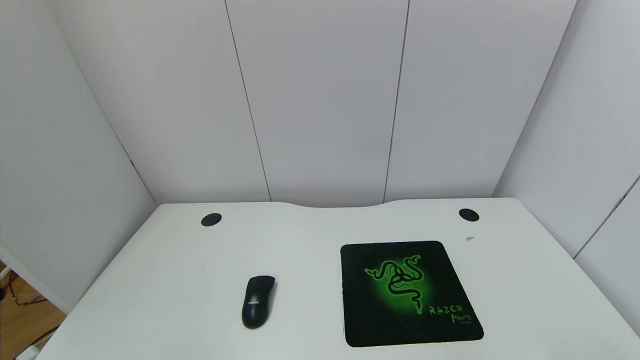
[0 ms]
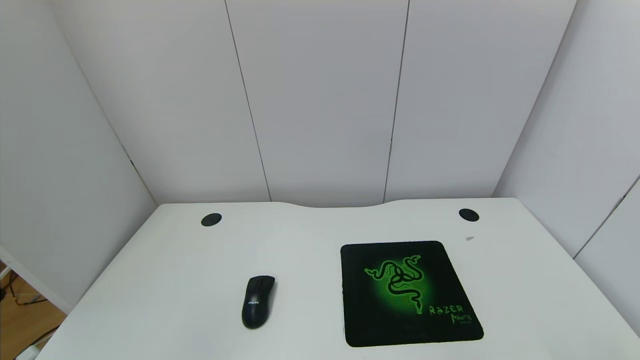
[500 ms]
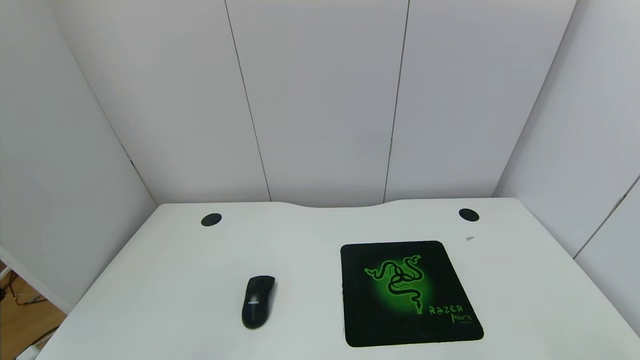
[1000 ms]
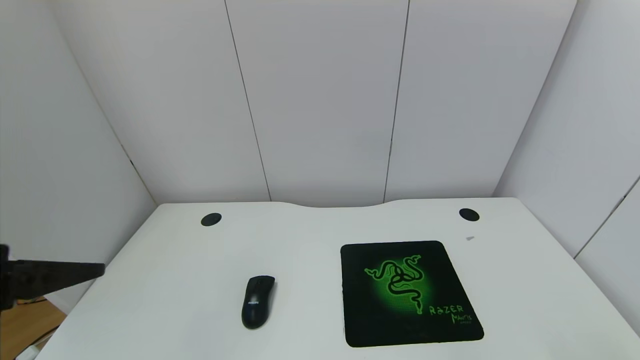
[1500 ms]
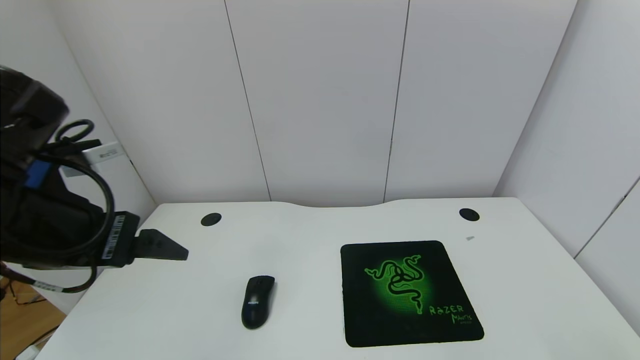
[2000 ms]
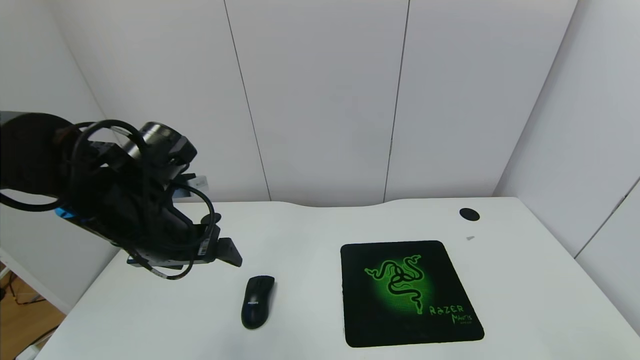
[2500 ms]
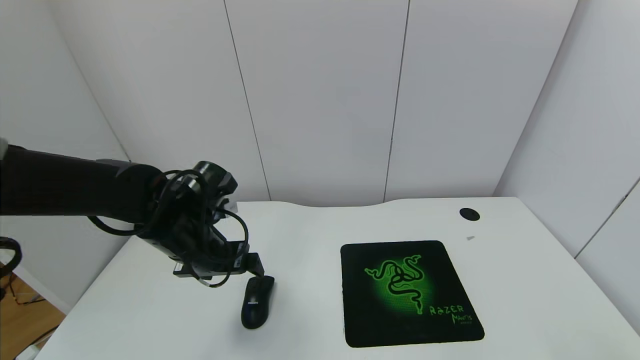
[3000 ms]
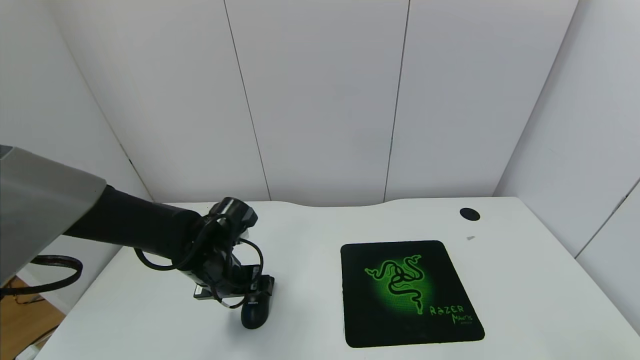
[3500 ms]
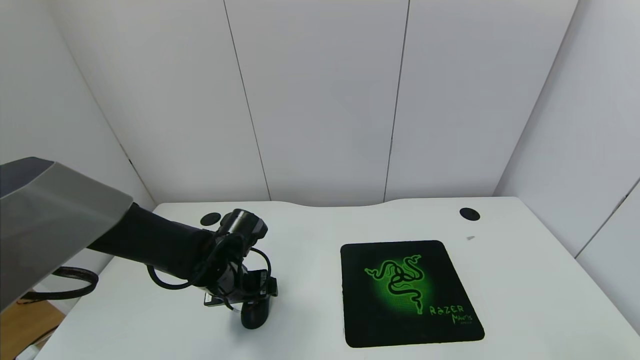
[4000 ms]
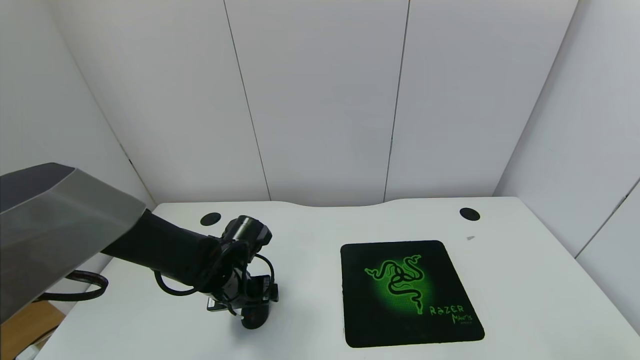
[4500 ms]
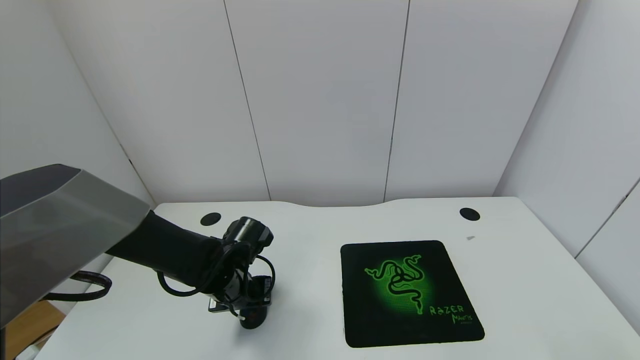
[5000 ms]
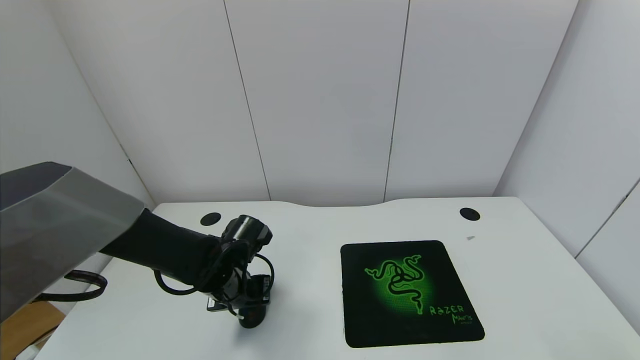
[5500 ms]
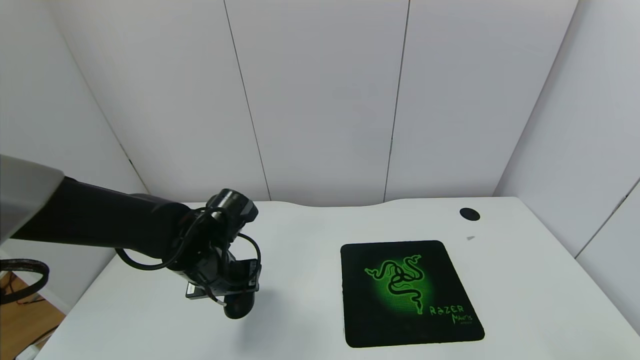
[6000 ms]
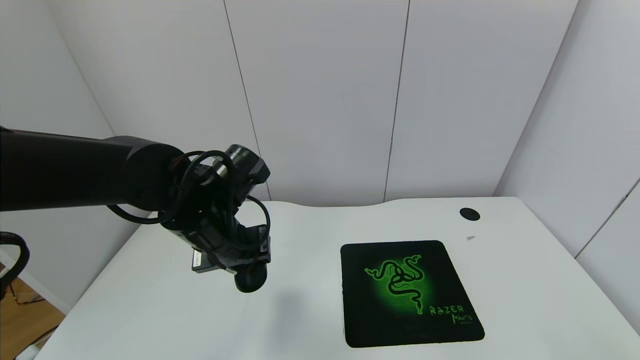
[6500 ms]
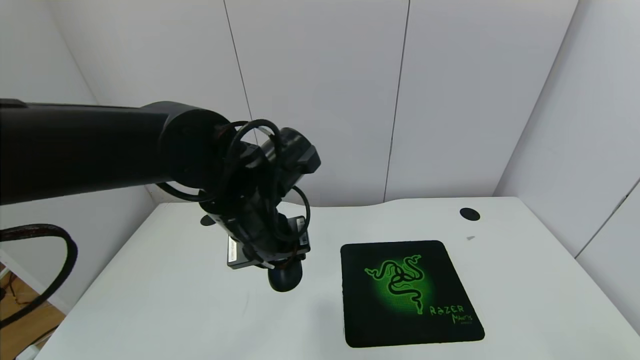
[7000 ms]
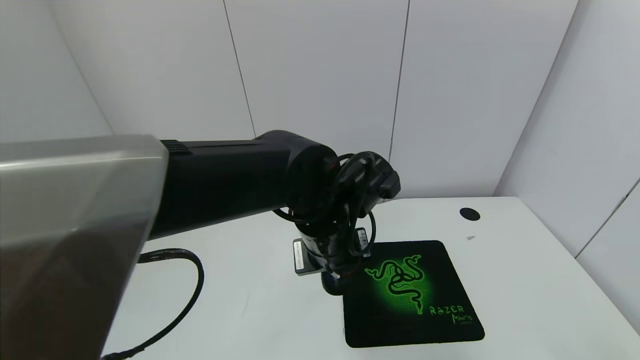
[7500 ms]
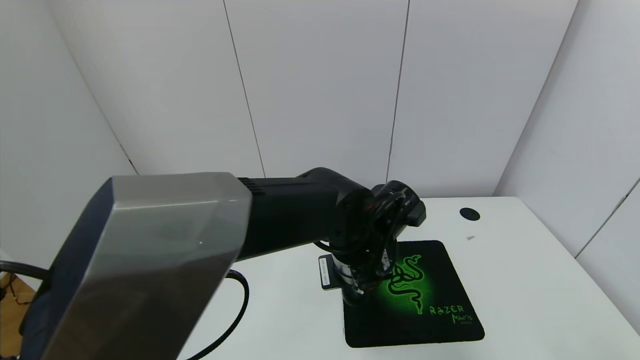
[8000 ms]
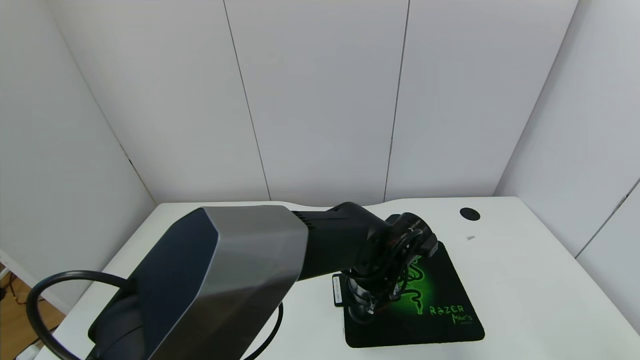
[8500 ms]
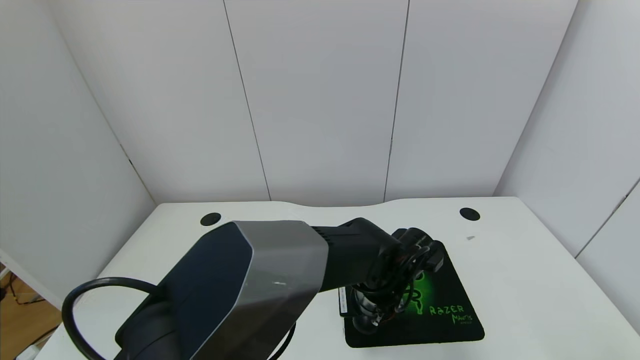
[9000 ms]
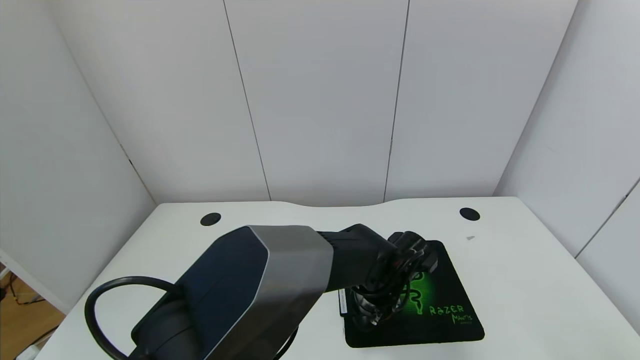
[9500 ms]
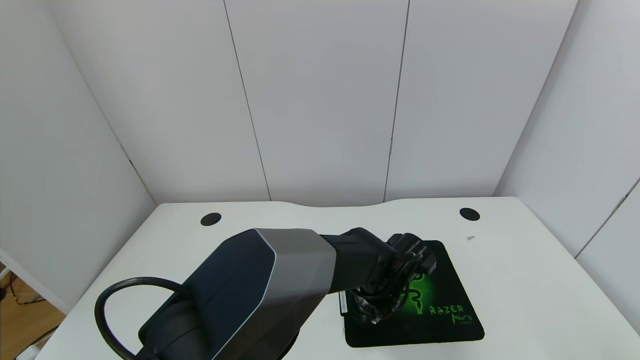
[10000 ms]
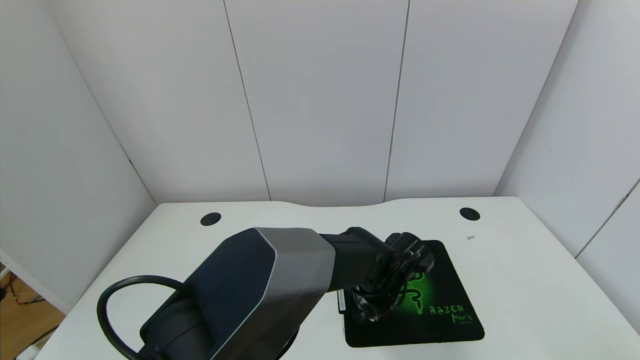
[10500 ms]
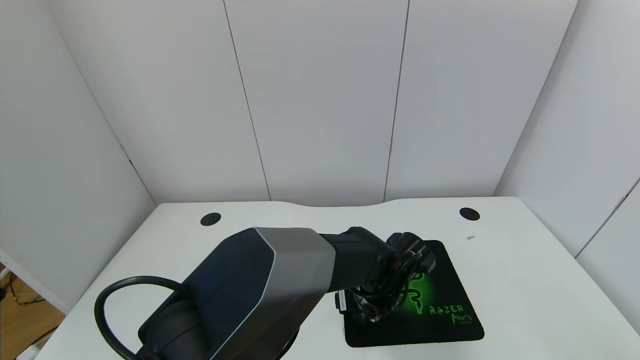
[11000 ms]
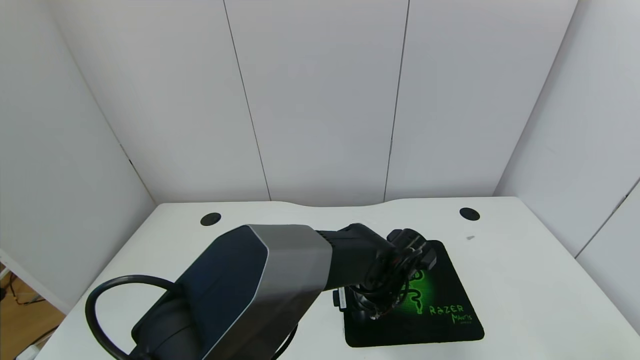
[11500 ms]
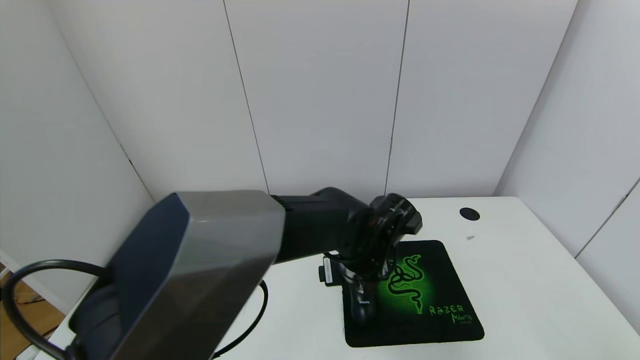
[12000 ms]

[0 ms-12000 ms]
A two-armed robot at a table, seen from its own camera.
Task of the whole recording: use the gripper to move the mouse from one side of the table to the mouse pad on the opposite side.
Step, 0 ms to 5000 ms: Grasp the mouse with the left gripper.
0 ms to 2000 ms: The left gripper goes some 30 cm forward and upward.
2000 ms to 4000 ms: The left gripper is displaced downward and forward by roughly 25 cm.
4000 ms to 6000 ms: The left gripper moves upward, roughly 5 cm, and closes.
6000 ms to 8000 ms: The left gripper heads to the right, covering roughly 20 cm.
8000 ms to 10000 ms: The left gripper is displaced downward by approximately 10 cm.
10000 ms to 12000 ms: The left gripper is displaced upward by some 5 cm, and opens its fingers.

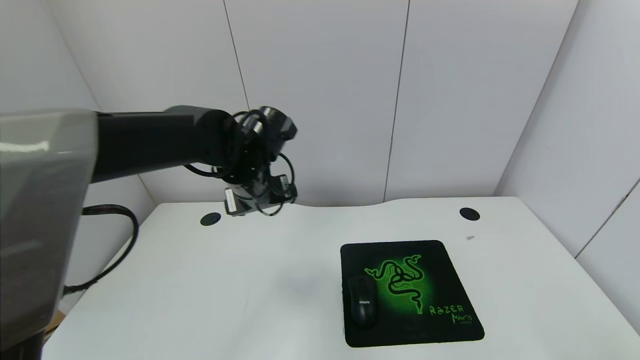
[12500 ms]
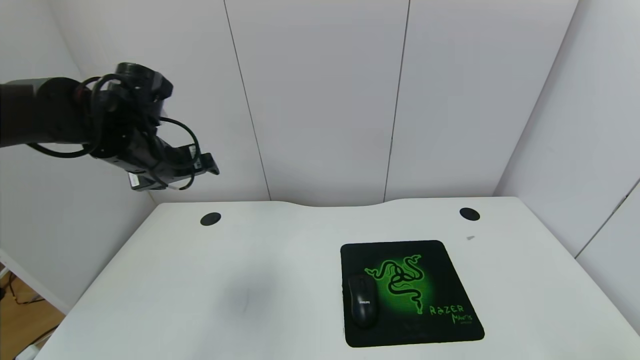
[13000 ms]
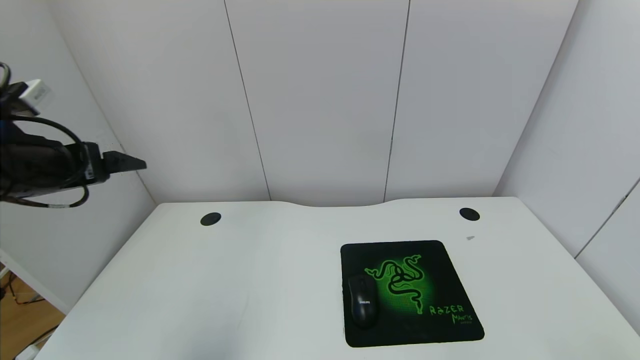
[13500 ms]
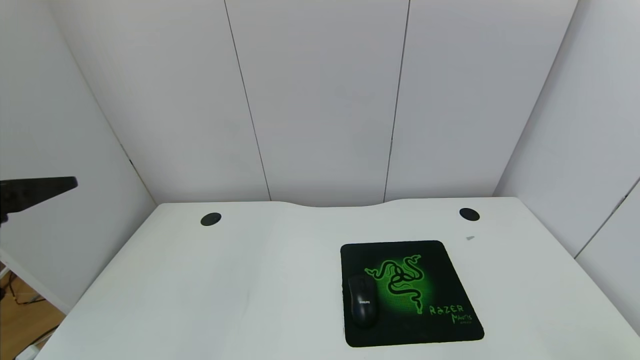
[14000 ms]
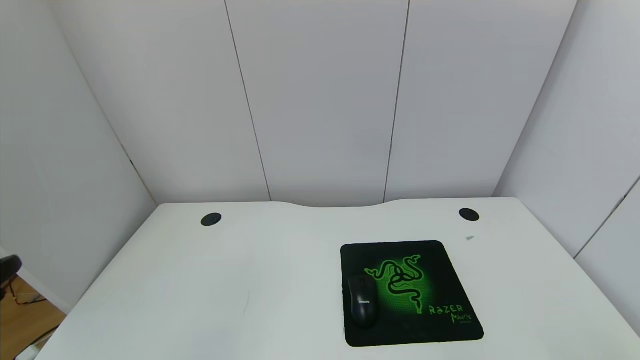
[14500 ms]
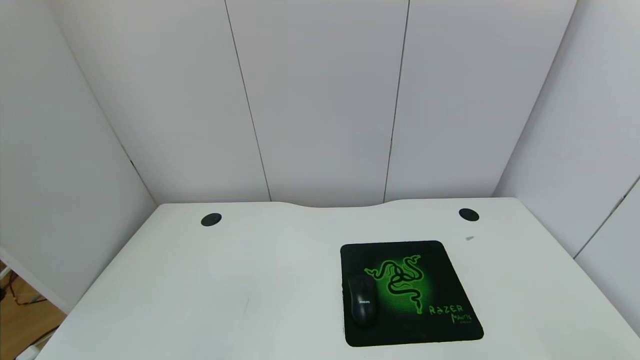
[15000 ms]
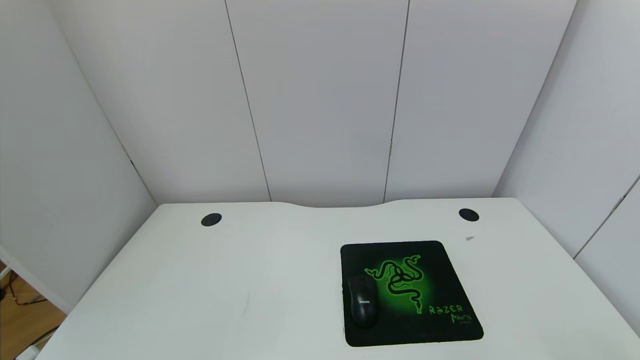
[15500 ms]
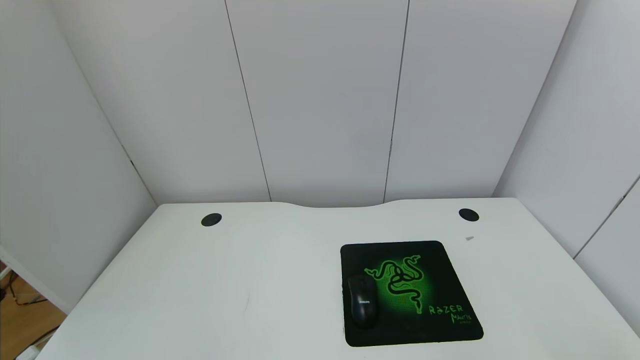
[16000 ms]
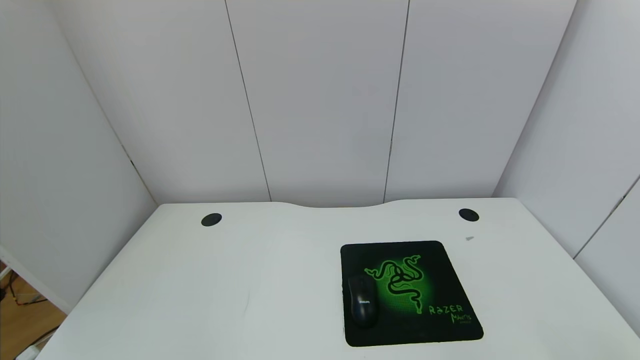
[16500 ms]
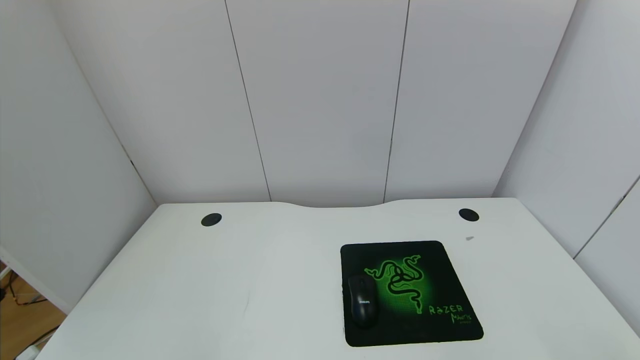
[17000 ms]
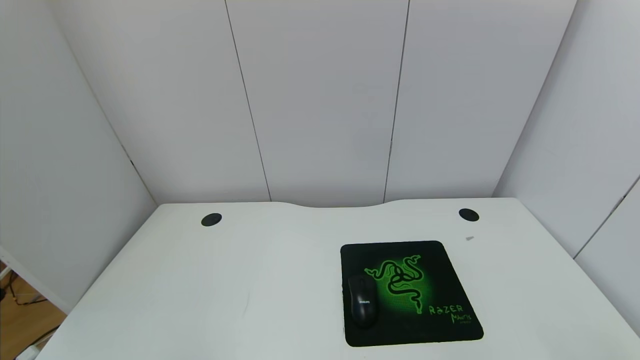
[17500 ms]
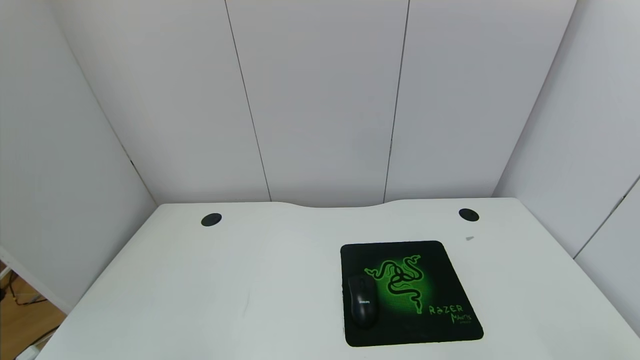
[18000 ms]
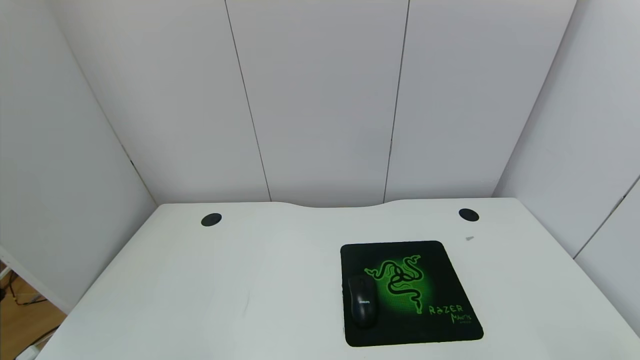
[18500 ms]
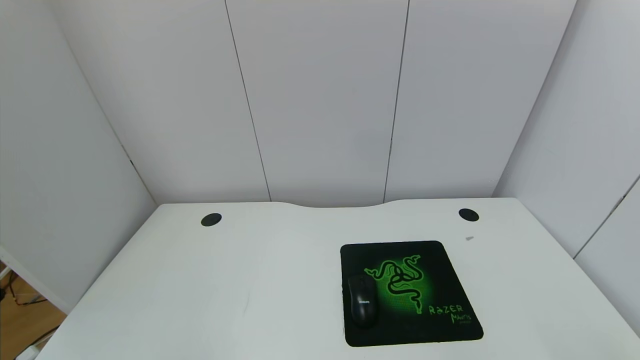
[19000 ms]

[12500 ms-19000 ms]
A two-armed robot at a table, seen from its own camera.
Task of the whole recording: use the gripper to move the mouse from one side of the table to the mouse pad on the opposite side.
12500 ms to 14500 ms: The left gripper heads backward and to the left, covering roughly 40 cm.
